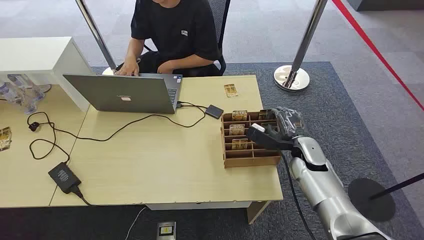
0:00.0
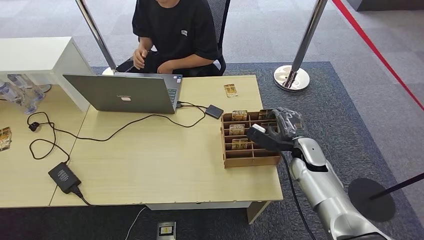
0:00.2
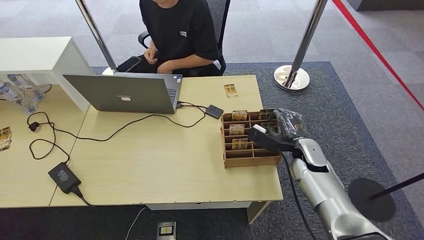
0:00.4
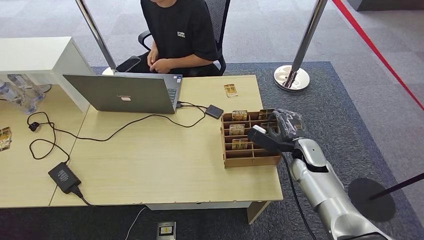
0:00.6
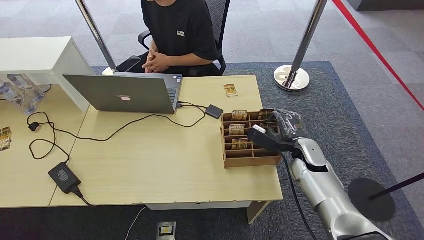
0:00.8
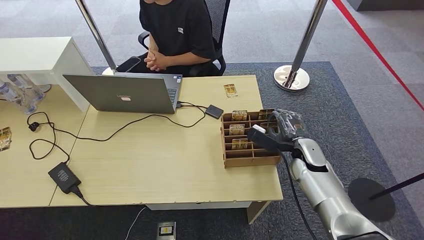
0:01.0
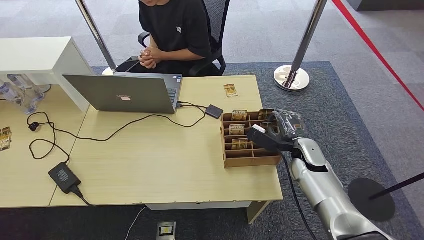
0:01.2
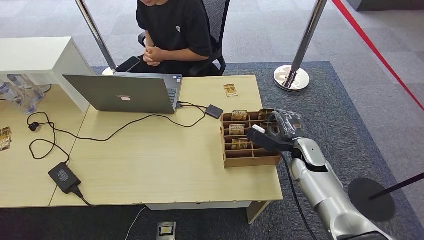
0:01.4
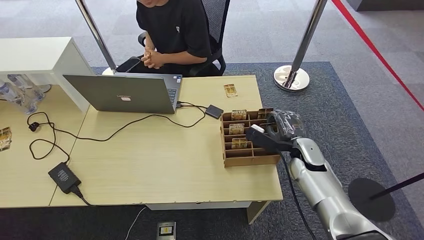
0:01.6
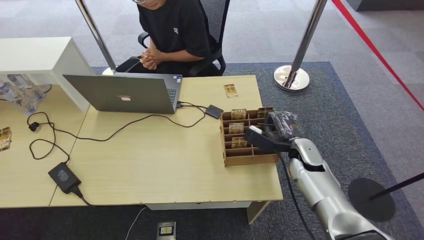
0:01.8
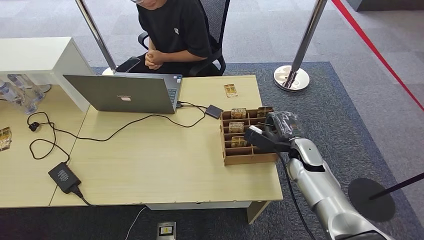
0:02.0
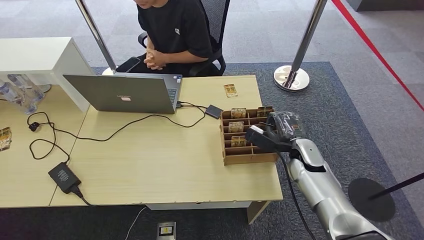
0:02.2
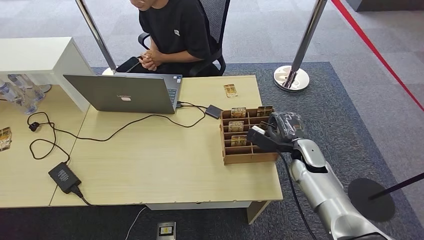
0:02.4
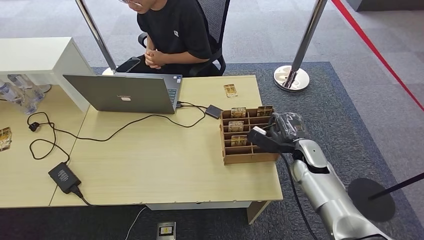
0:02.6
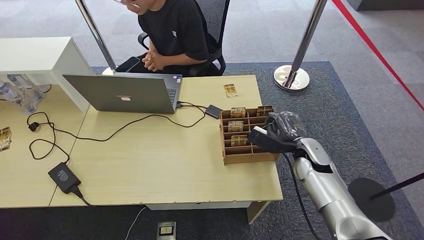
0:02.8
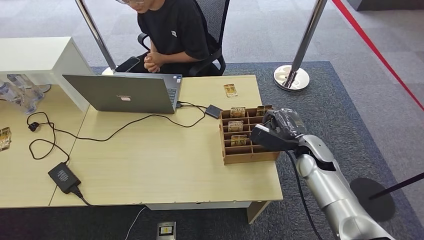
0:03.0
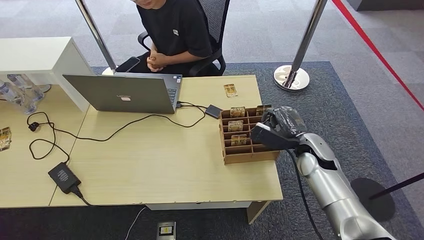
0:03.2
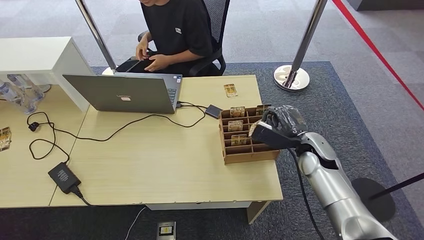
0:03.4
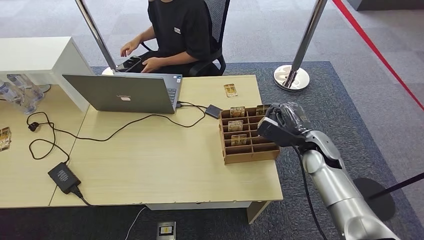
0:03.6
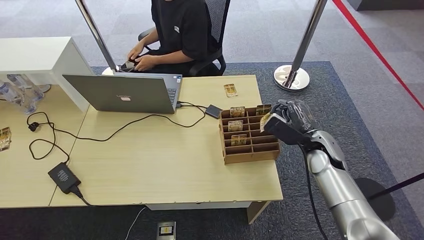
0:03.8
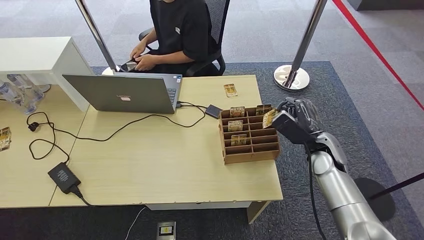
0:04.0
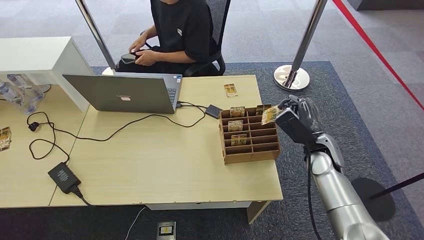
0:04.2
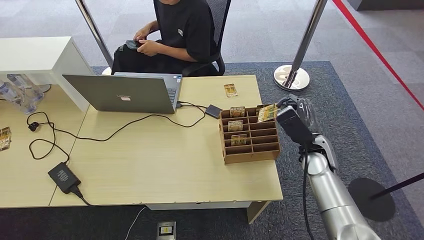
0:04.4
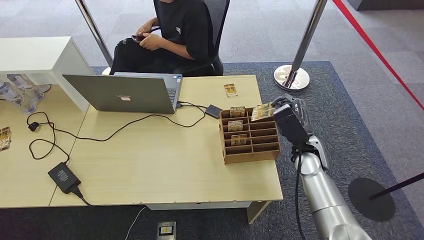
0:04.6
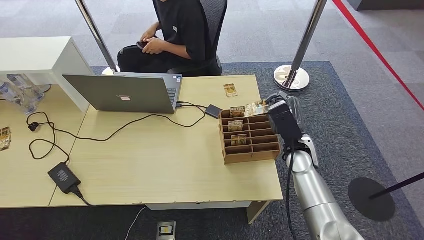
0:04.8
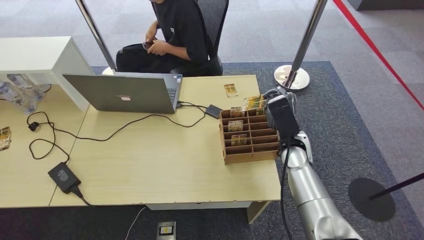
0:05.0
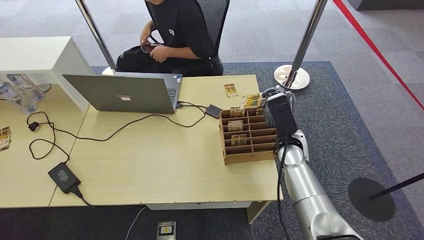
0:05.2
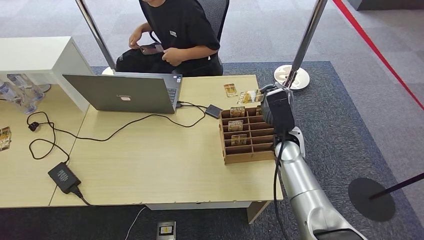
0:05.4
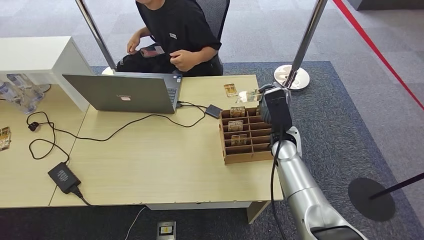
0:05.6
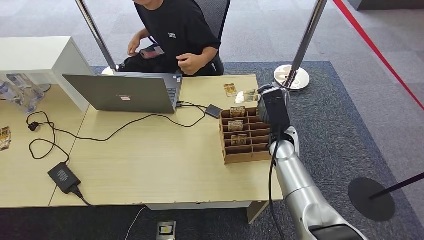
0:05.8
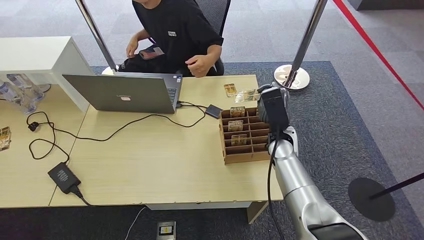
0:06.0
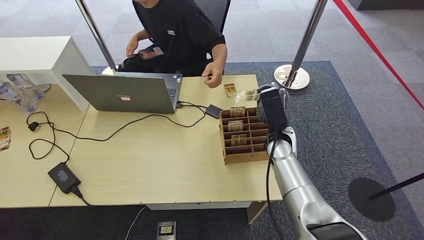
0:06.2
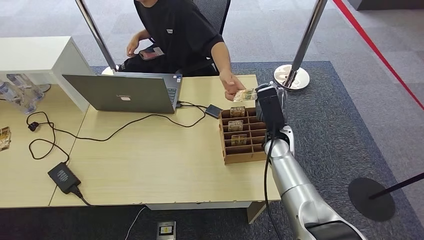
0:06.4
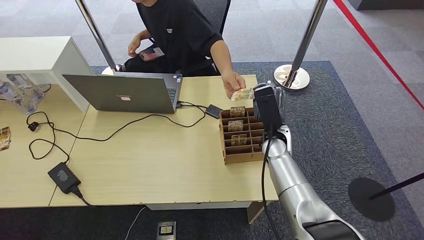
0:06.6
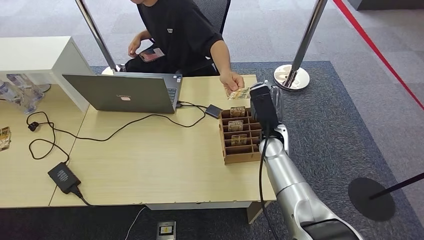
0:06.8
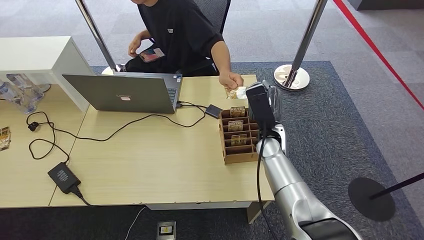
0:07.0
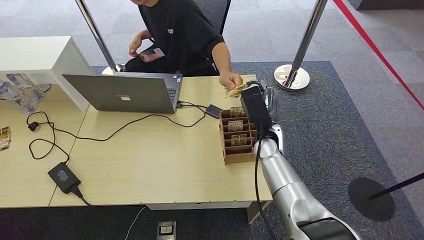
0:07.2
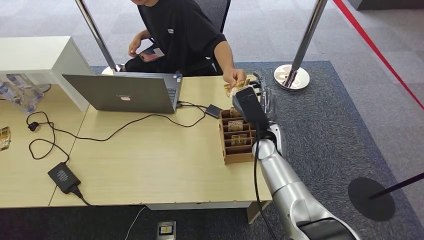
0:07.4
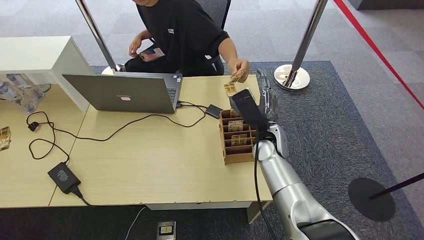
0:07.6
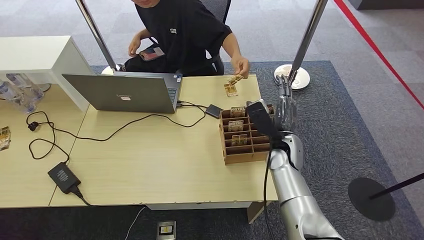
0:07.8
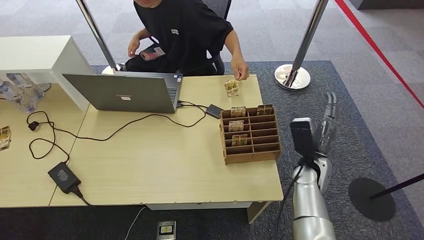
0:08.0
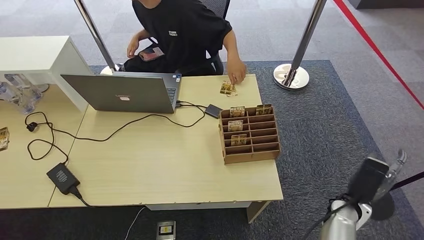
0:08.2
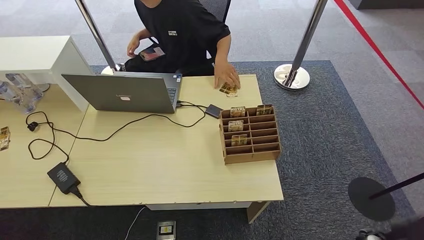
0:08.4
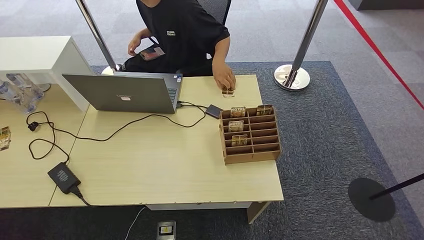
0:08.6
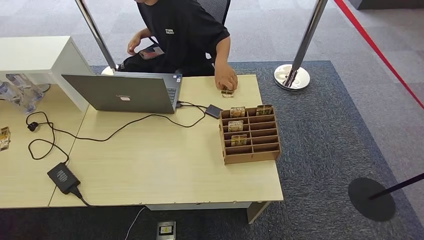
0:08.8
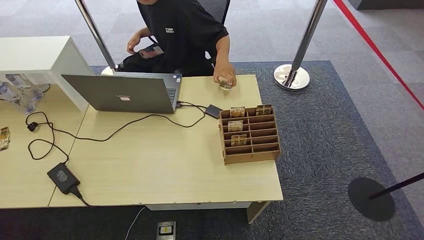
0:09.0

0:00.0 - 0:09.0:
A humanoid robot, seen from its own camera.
Step, 0:00.0 - 0:03.4: Pick up the room card from the card holder.
Step, 0:03.6 - 0:09.0: Hand the room card to the target.
0:01.6 - 0:03.0: The hands move only a little.
0:04.4 - 0:06.0: The right hand travels to the left by some 5 cm.
0:06.0 - 0:07.6: The hands make only small movements.
0:07.6 - 0:09.0: The right hand heads backward and downward, covering some 40 cm.
